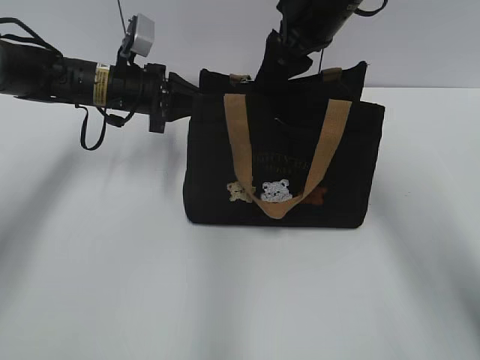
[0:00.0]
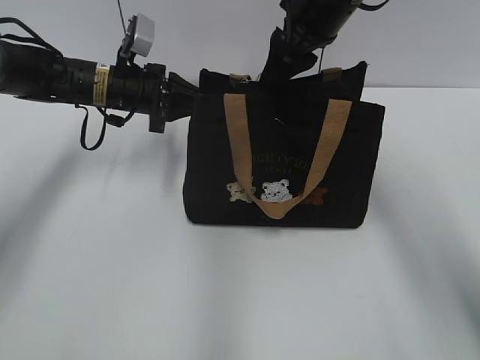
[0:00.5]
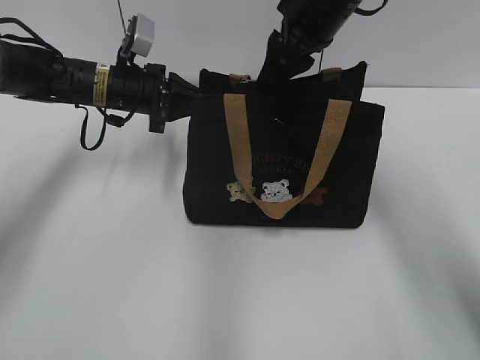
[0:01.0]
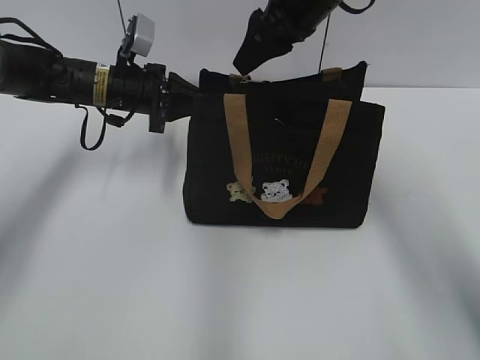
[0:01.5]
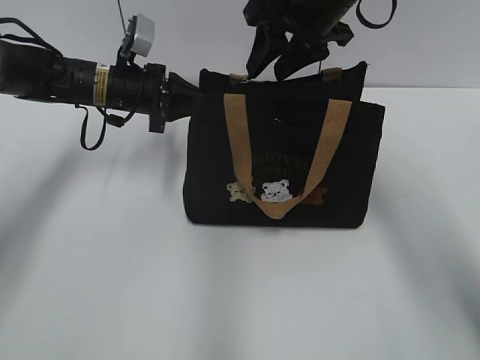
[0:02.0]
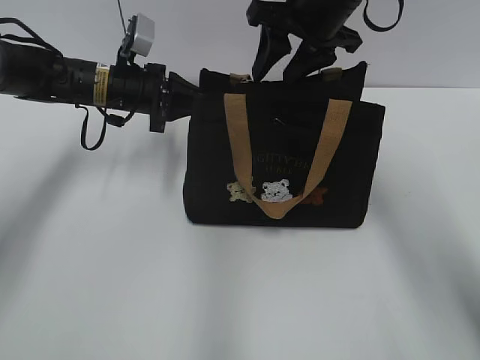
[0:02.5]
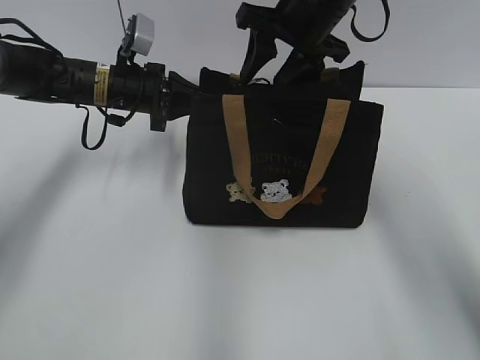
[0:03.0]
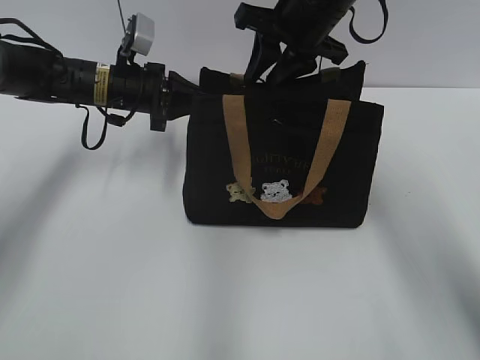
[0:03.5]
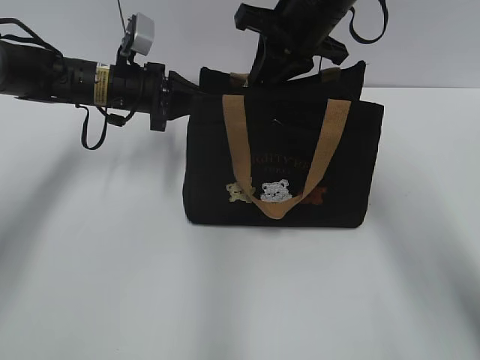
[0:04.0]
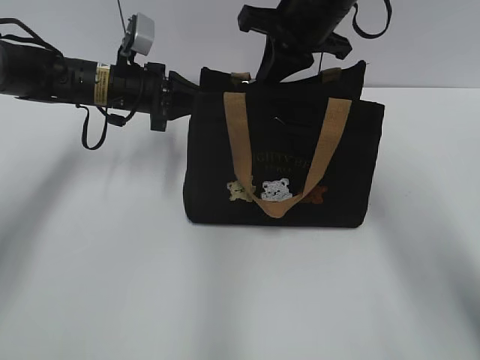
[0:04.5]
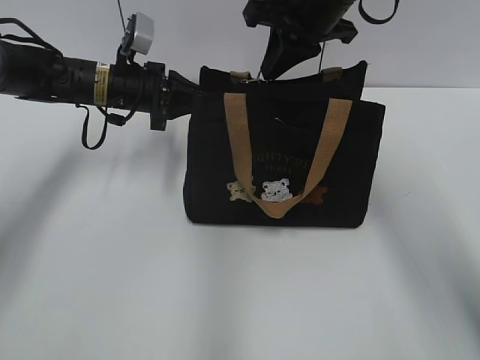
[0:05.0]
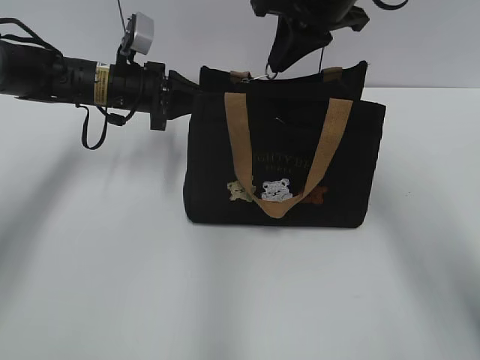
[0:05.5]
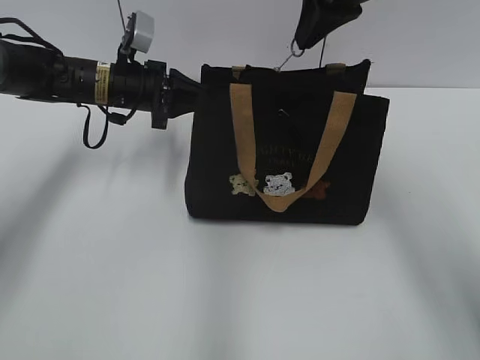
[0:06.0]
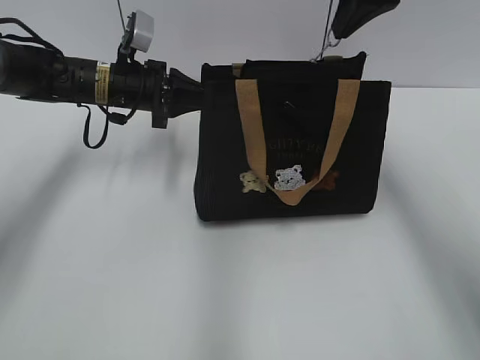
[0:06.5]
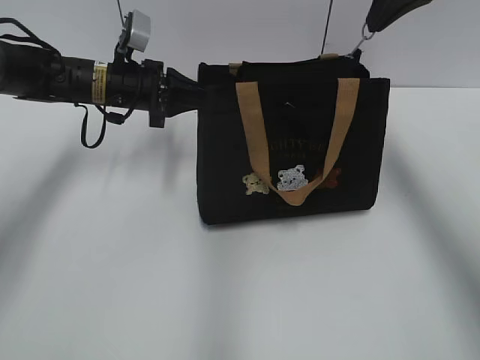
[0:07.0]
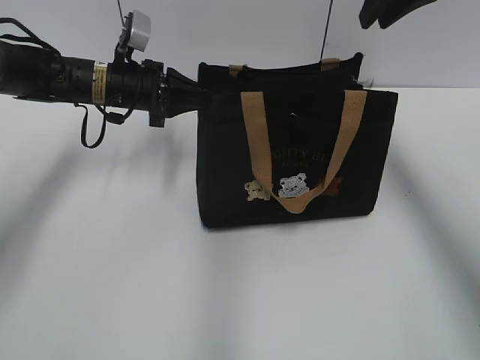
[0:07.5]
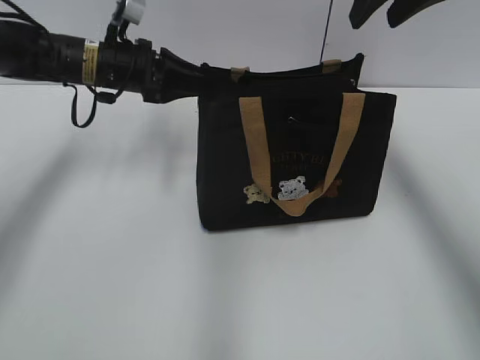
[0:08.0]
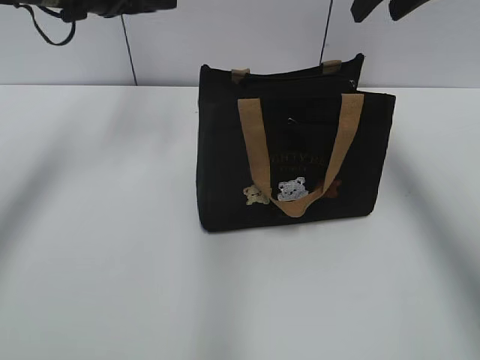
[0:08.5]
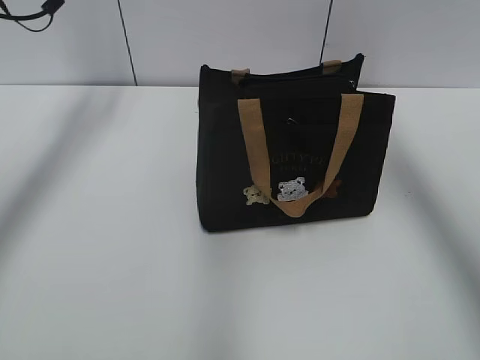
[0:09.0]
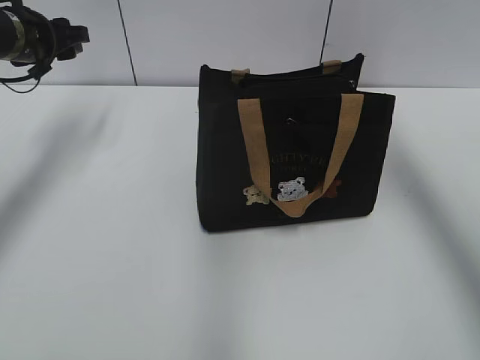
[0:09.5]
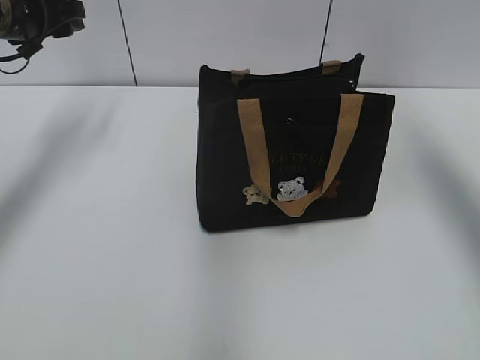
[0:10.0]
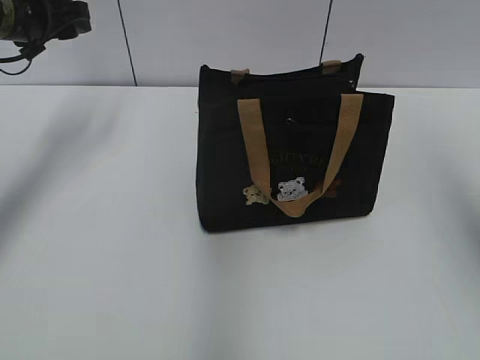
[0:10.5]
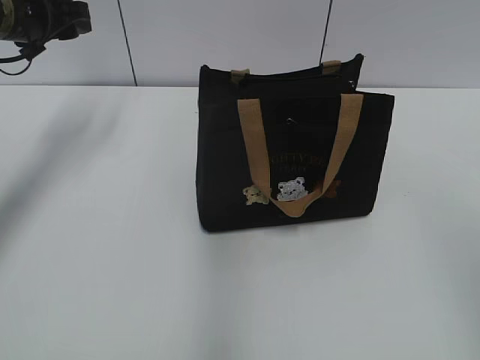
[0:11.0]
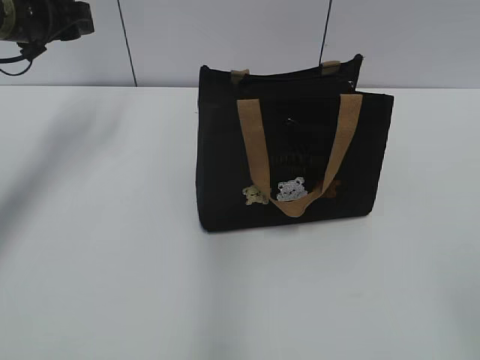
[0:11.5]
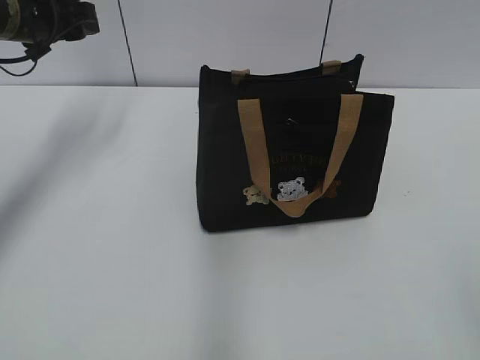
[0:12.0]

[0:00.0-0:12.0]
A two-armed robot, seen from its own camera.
Step, 0:00.0 to 0:07.0: Pull open the zipper with your right hand.
0:02.0 to 0:04.0: The right gripper closes up.
0:04.0 to 0:06.0: The right gripper is displaced upward by roughly 5 cm.
0:06.0 to 0:08.0: The left gripper opens its fingers. Meanwhile the right gripper goes some 5 cm to the right, and opens its fingers.
0:08.0 to 0:10.0: The left gripper moves to the left and upward, roughly 10 cm. Meanwhile the right gripper is displaced to the right, backward and upward by approximately 10 cm.
0:10.0 to 0:12.0: The right gripper heads backward and downward, covering some 40 cm, and closes.

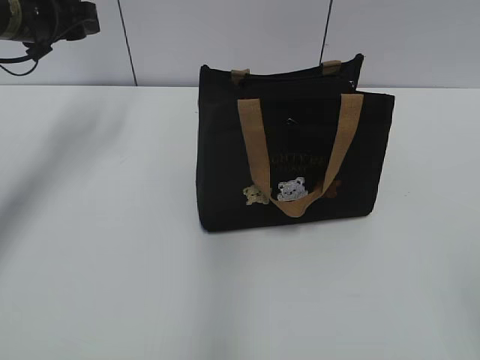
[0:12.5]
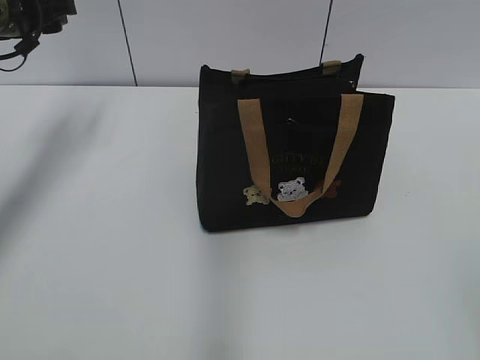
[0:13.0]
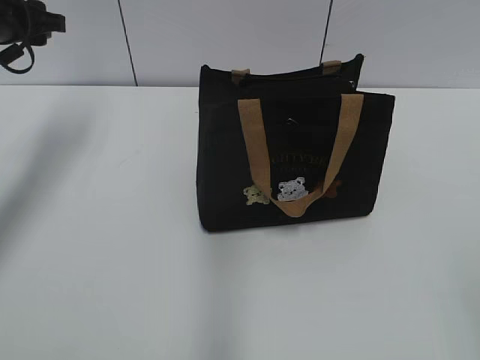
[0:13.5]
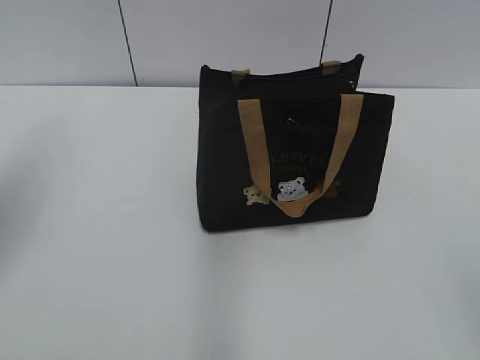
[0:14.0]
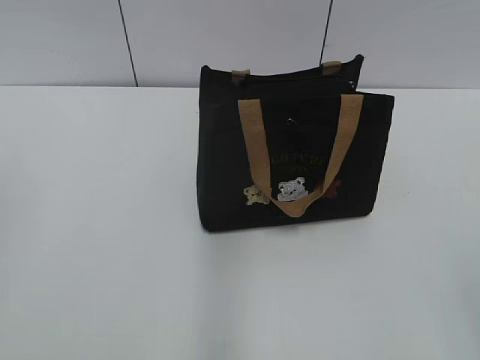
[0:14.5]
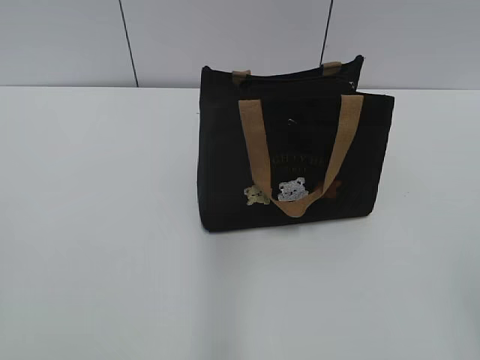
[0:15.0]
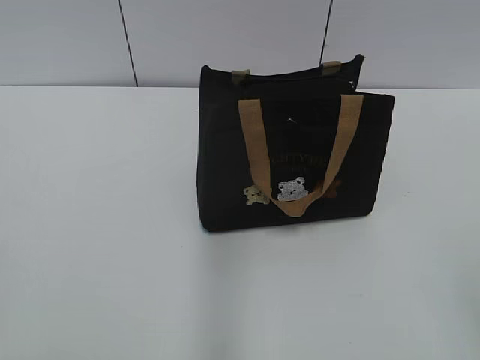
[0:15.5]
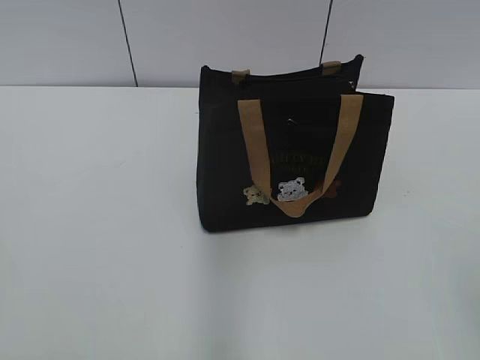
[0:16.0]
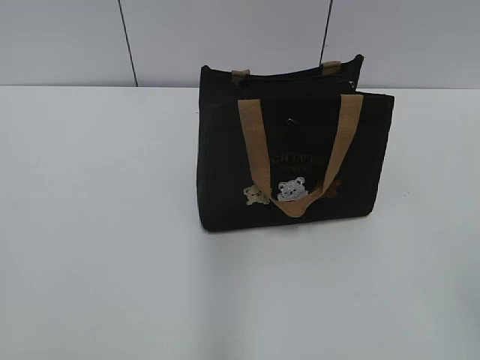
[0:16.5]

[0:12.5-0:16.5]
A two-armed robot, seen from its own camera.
0:12.5 to 0:14.5: The left gripper heads backward, covering about 35 cm.

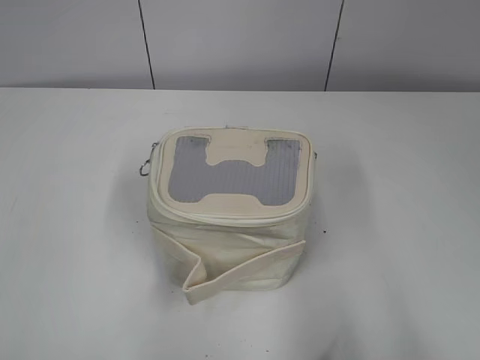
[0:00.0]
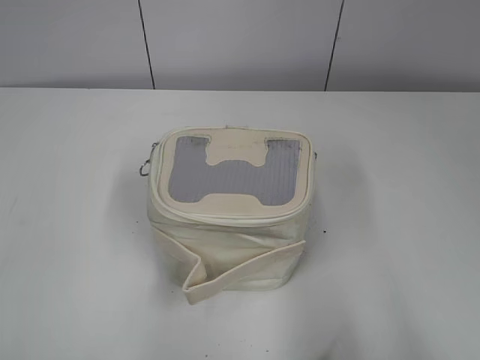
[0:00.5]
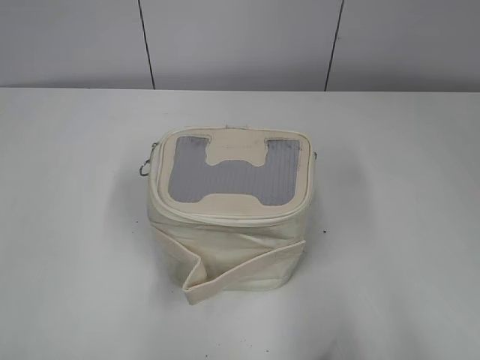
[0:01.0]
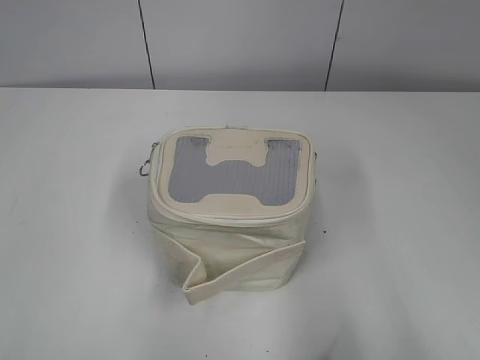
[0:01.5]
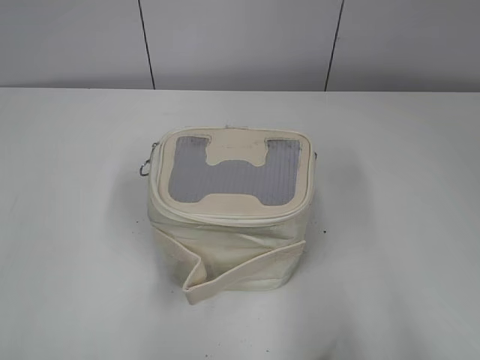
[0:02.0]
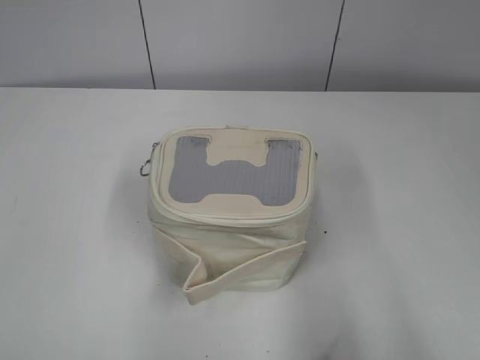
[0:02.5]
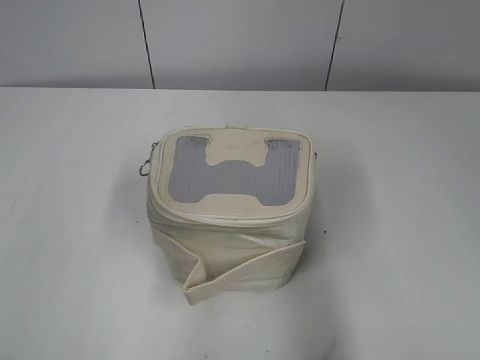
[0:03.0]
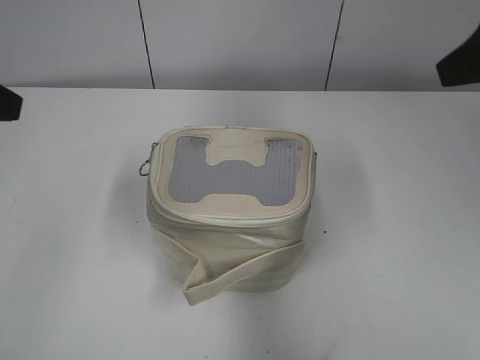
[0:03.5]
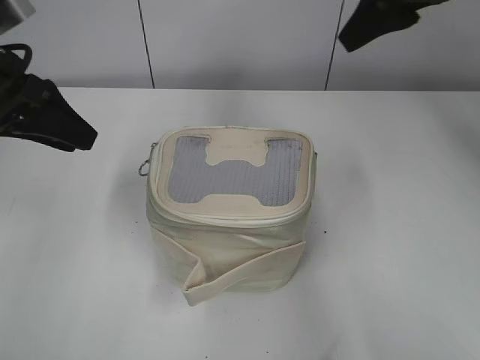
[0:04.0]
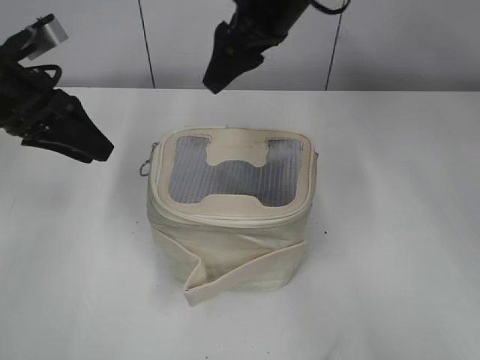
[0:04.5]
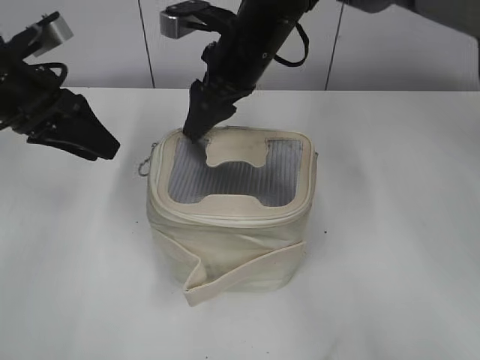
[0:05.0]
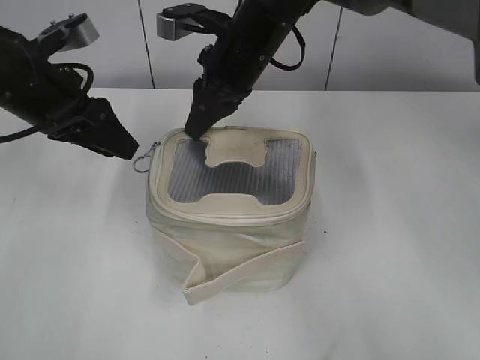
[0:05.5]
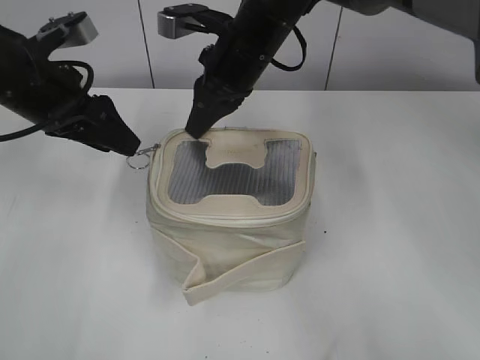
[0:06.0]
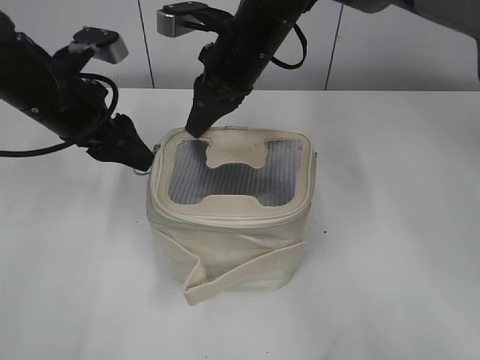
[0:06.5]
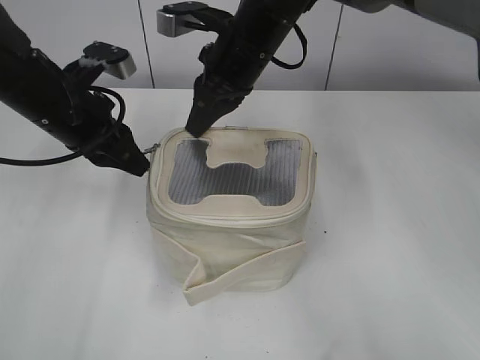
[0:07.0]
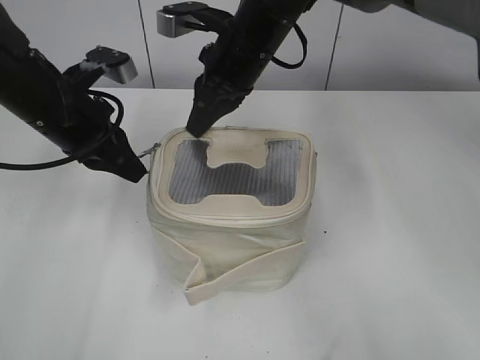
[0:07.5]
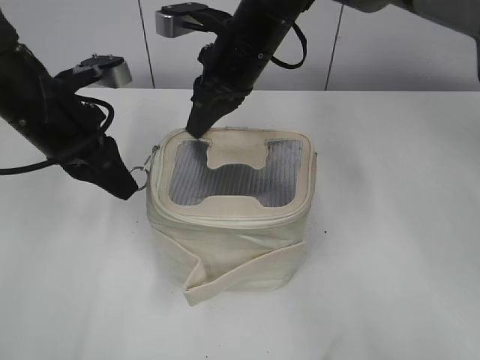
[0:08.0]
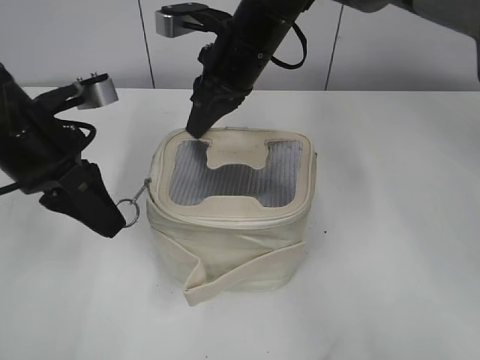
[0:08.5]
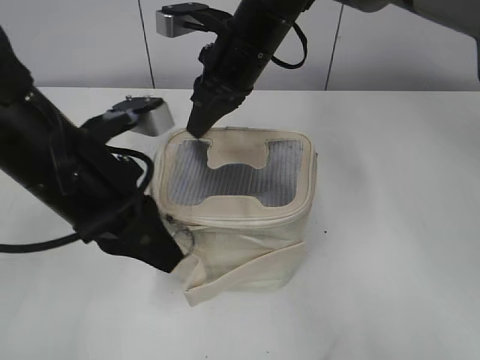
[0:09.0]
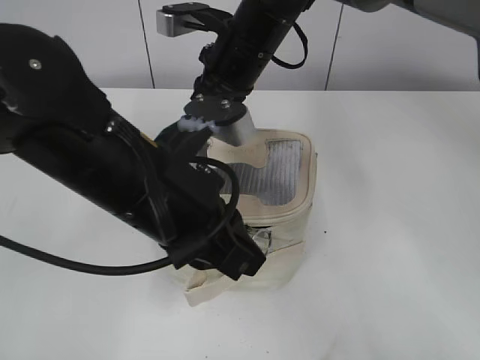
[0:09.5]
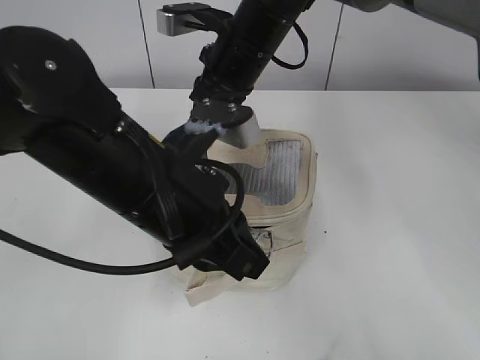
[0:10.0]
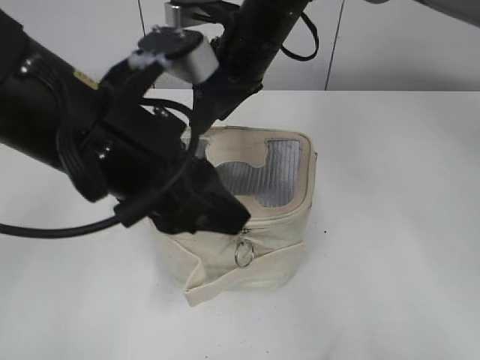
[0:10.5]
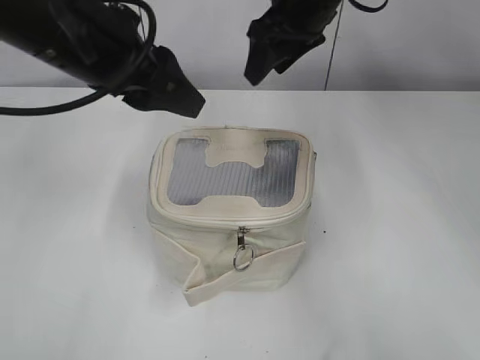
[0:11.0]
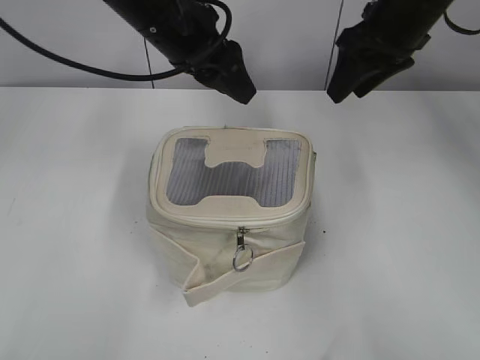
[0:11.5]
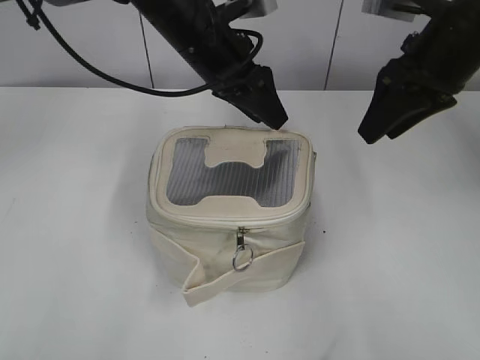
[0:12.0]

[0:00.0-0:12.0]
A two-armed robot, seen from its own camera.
Step, 0:00.0 to 0:10.0: Zip up the bag with your left hand.
0:02.0 to 0:04.0: Both grippers move forward, about 30 cm.
0:04.0 to 0:06.0: The left gripper ends up approximately 5 cm from where it was; the right gripper goes roughly 20 cm to the left and downward, and closes its fingers.
0:06.0 to 0:08.0: The left gripper closes.
0:08.0 to 0:10.0: The left gripper moves to the right and backward, approximately 15 cm.
0:10.0 to 0:12.0: The right gripper shifts some 20 cm to the right, and opens up. The left gripper heads forward, covering roughly 20 cm, and opens.
